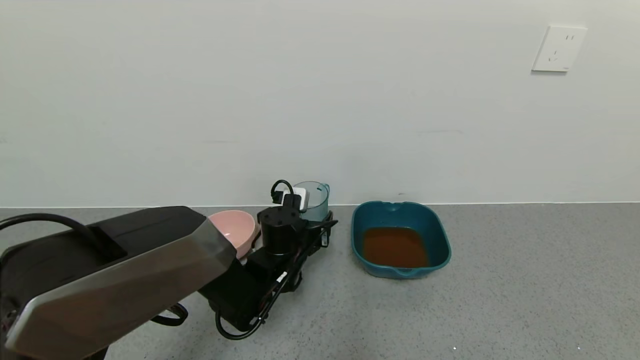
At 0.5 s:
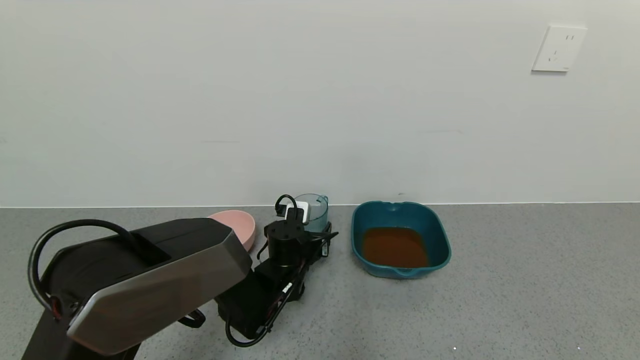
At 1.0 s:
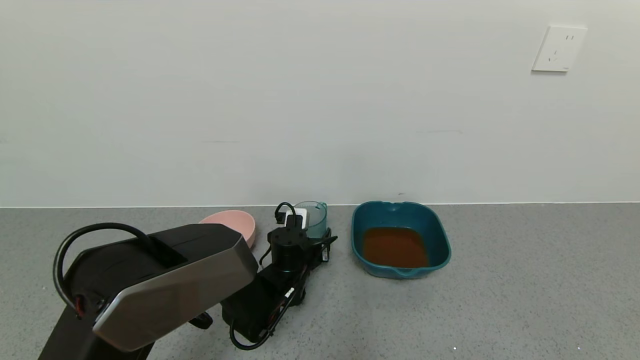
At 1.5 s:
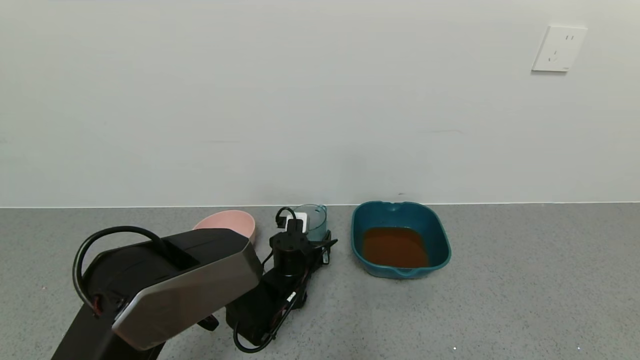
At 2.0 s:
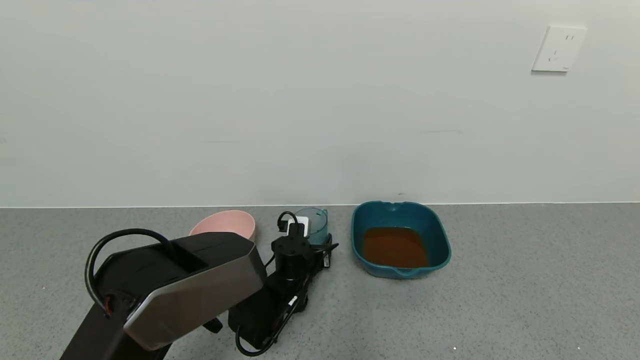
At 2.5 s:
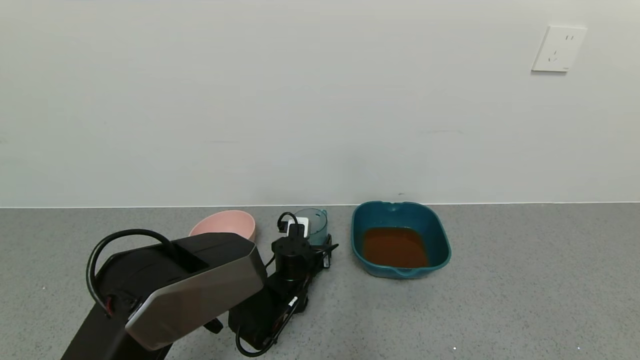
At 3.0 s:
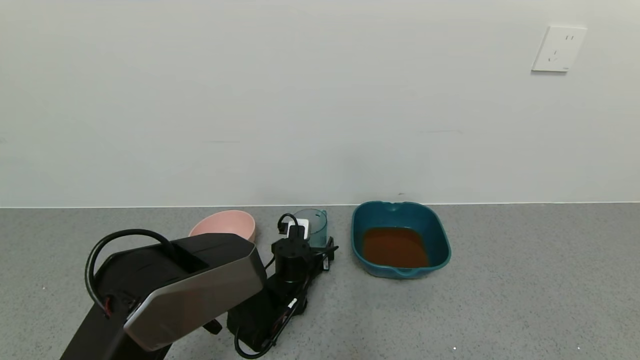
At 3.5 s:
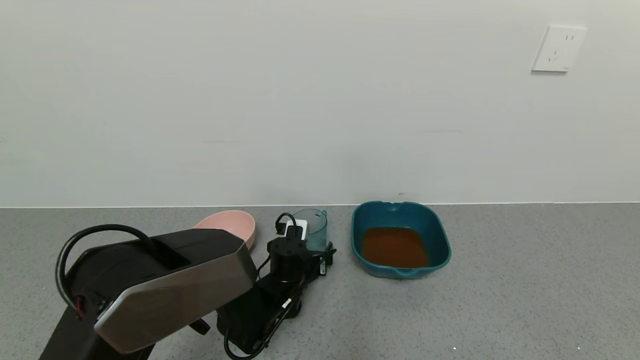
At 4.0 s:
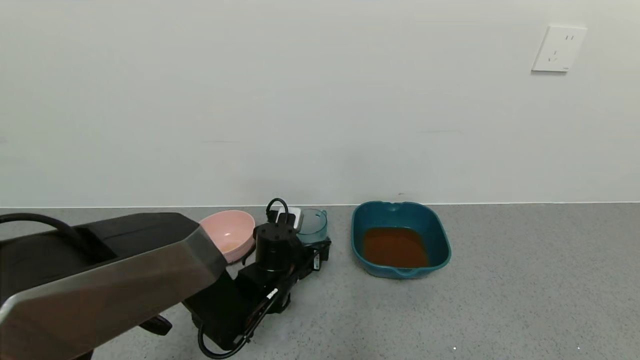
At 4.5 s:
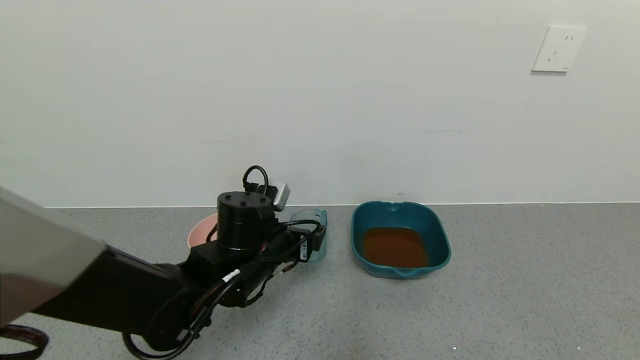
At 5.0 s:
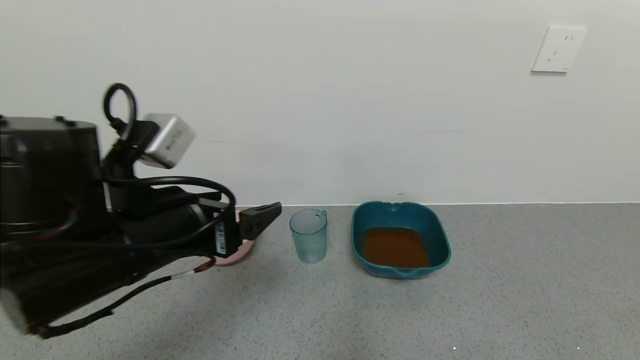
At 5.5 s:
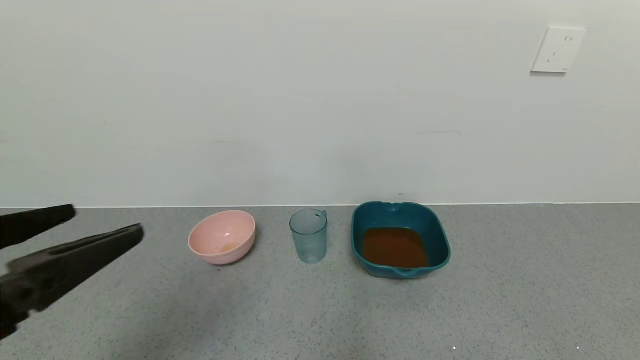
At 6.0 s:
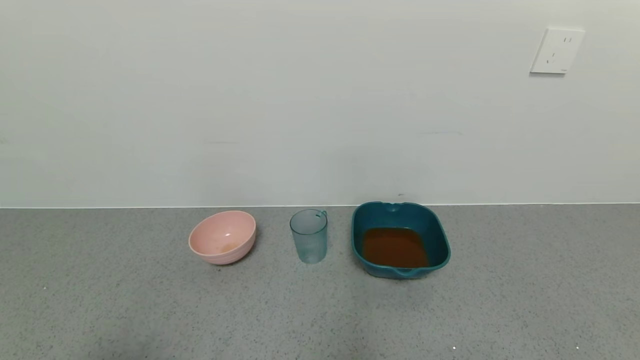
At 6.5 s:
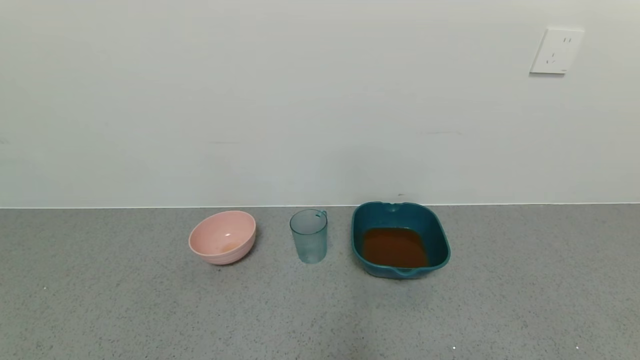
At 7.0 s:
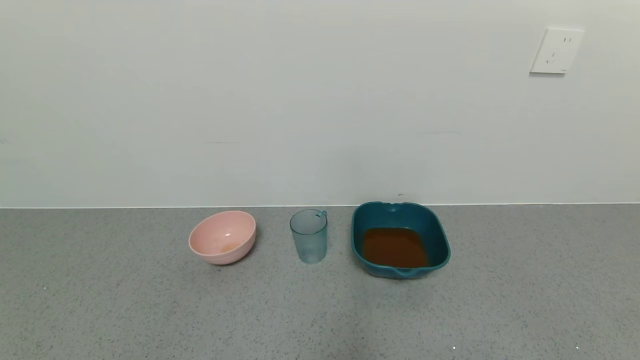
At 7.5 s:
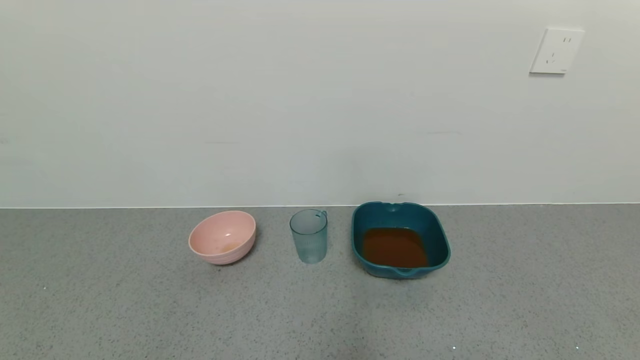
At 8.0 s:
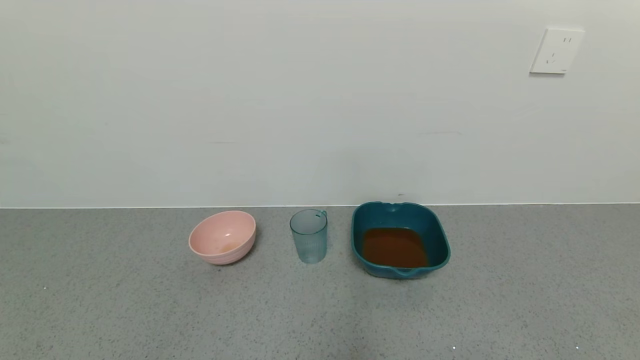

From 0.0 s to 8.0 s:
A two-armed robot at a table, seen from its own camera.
Task of the whole recording: use a gripper to pick up the cup and pour the liquid into a bowl or tray.
Step, from 0.0 s to 4.5 s: Place the glass cup with the left gripper.
From 0.0 s to 2.0 s: The left gripper shifts roughly 5 cm downward.
From 2.0 s to 4.0 s: The left gripper shifts about 5 cm upward, and opens.
From 4.0 s to 6.0 s: The left gripper moves backward, upward and to the left, about 50 cm.
